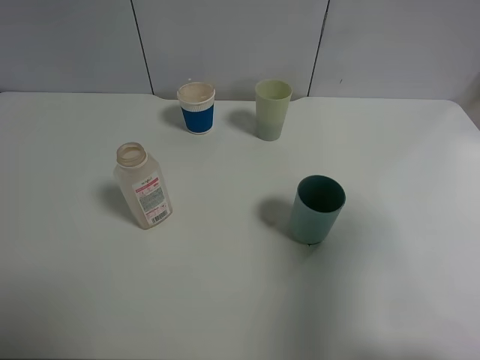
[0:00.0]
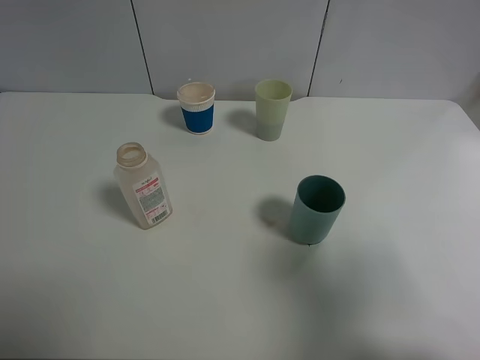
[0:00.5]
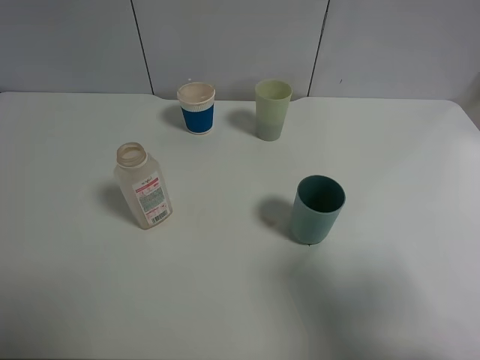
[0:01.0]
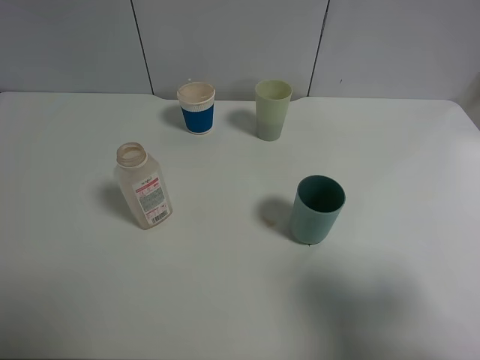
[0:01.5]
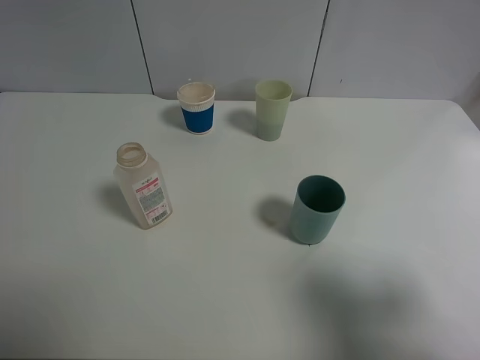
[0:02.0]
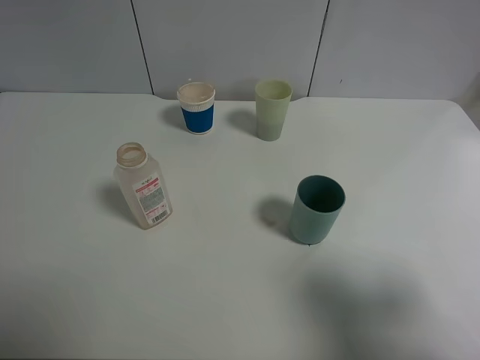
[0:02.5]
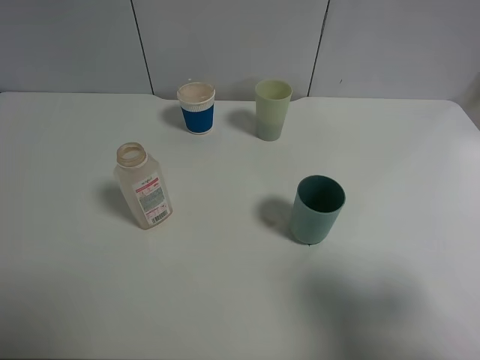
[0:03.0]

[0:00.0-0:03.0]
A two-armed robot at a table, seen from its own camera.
Task of the whole recording: use a clamp to hold the bottle of the drink, pour the beverage into a random cup, then clamp the cup containing the drink and pour the drink into another random cup.
0:00.0 to 0:01.5: The right gripper heads backward and downward, covering roughly 10 cm.
0:01.5 to 0:03.0: Both grippers stay put.
